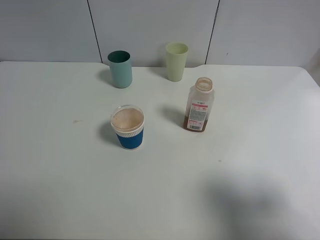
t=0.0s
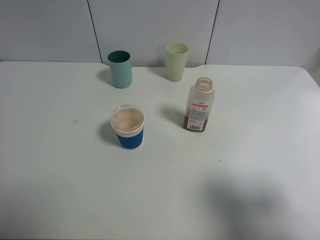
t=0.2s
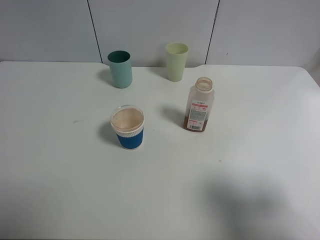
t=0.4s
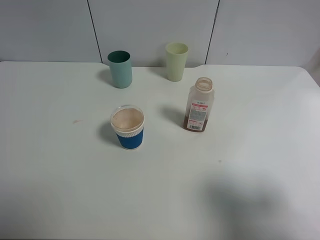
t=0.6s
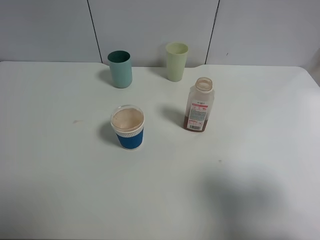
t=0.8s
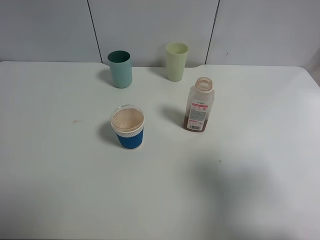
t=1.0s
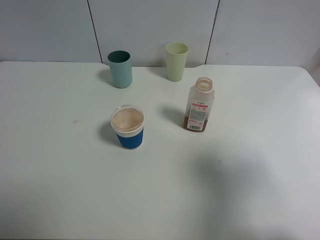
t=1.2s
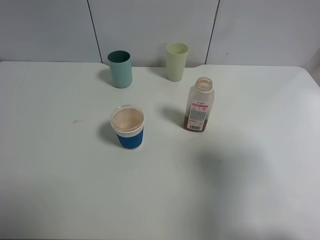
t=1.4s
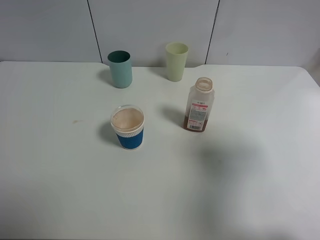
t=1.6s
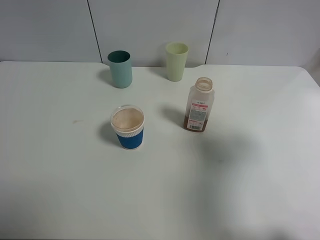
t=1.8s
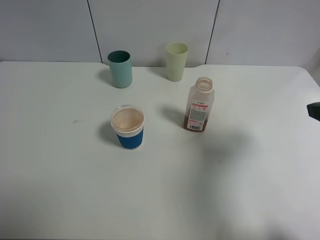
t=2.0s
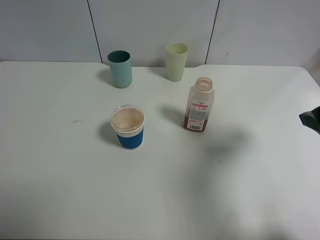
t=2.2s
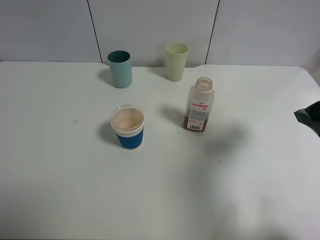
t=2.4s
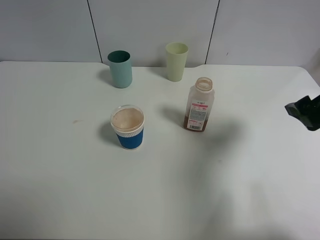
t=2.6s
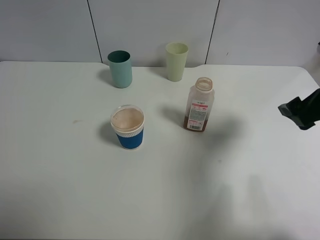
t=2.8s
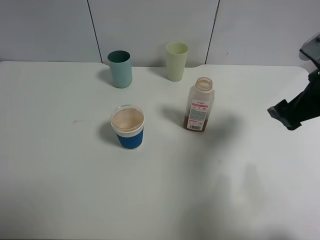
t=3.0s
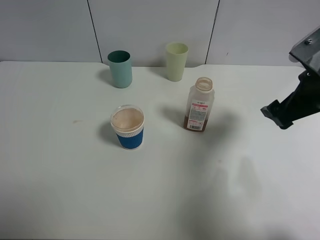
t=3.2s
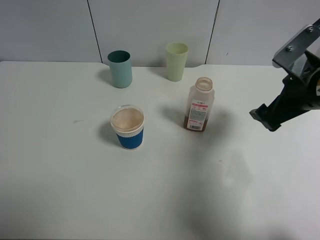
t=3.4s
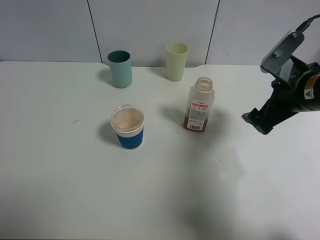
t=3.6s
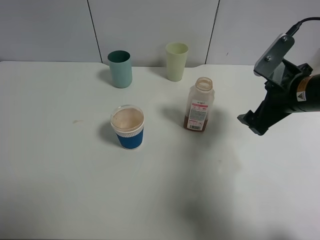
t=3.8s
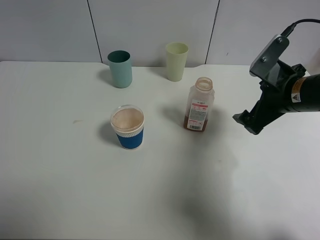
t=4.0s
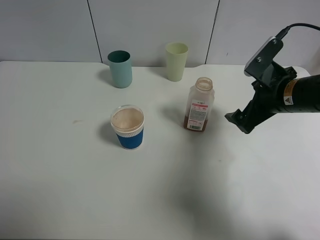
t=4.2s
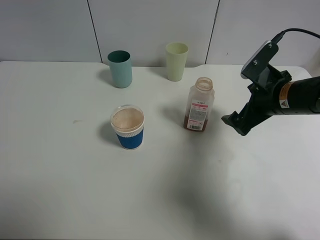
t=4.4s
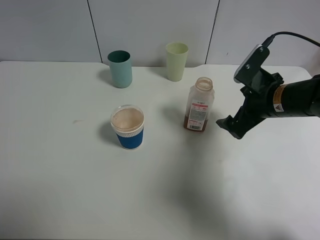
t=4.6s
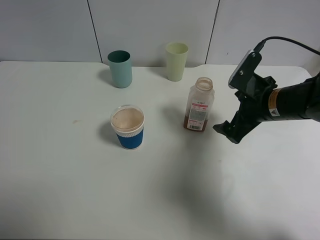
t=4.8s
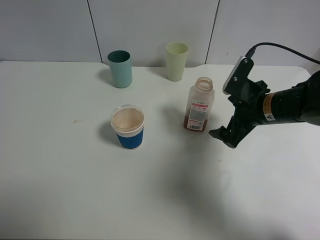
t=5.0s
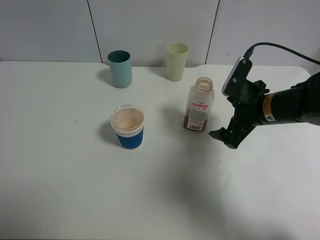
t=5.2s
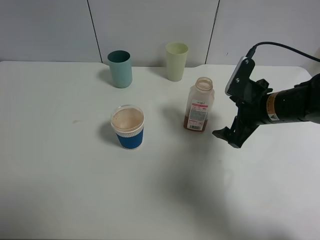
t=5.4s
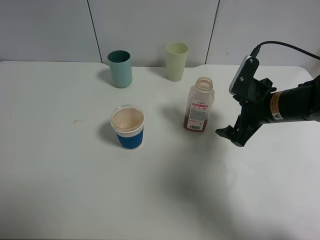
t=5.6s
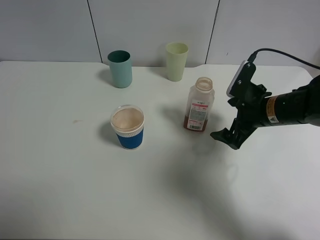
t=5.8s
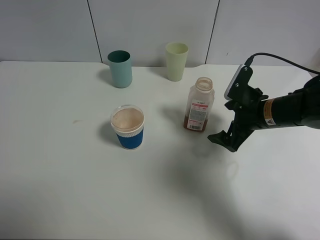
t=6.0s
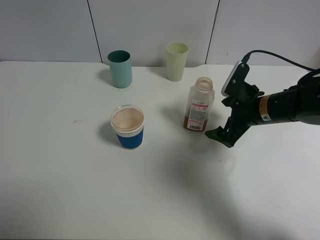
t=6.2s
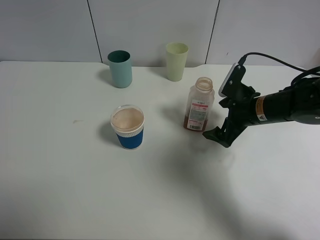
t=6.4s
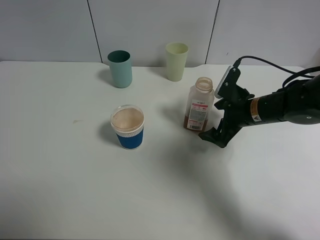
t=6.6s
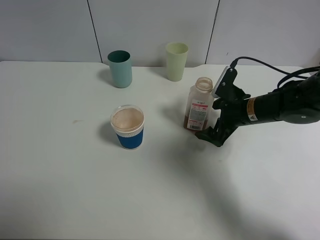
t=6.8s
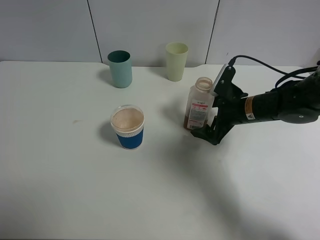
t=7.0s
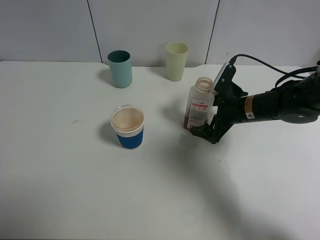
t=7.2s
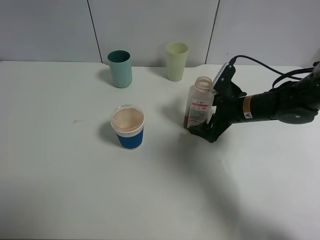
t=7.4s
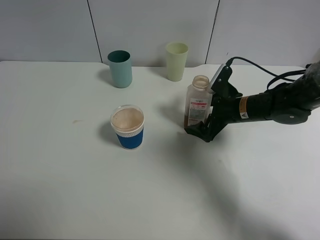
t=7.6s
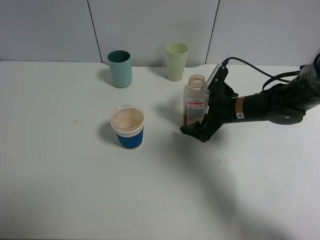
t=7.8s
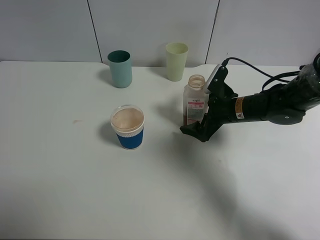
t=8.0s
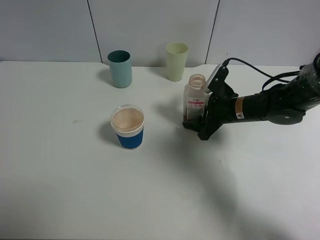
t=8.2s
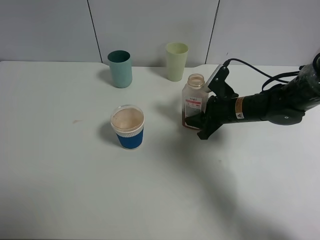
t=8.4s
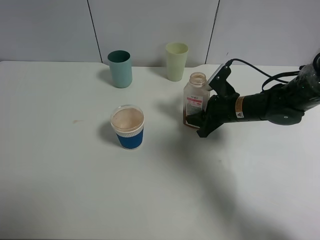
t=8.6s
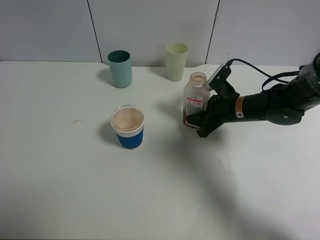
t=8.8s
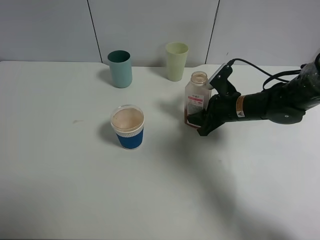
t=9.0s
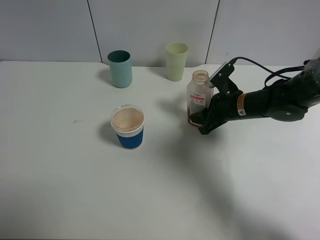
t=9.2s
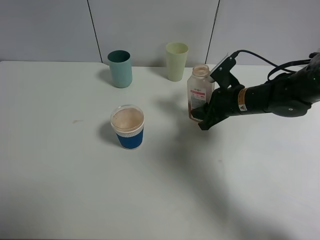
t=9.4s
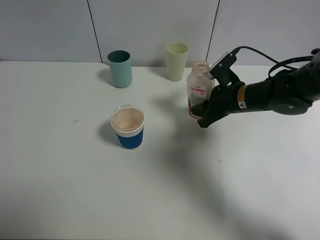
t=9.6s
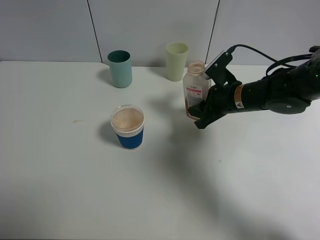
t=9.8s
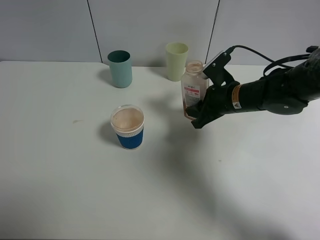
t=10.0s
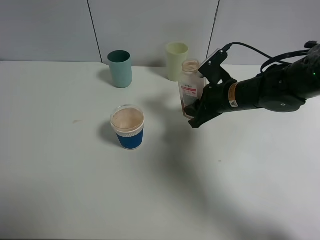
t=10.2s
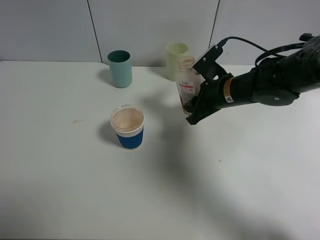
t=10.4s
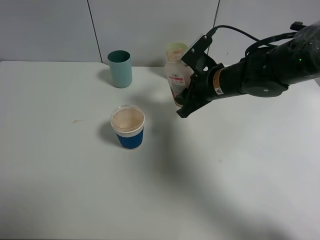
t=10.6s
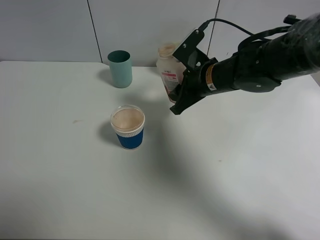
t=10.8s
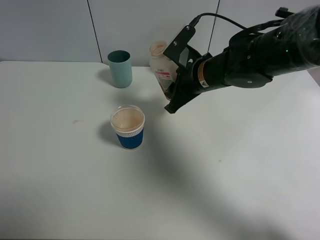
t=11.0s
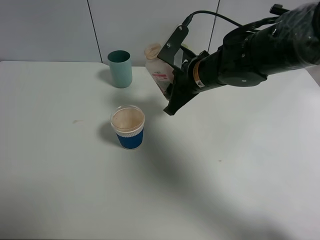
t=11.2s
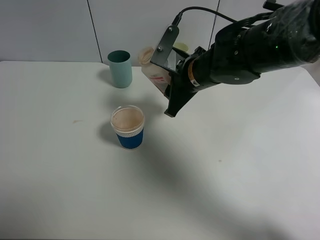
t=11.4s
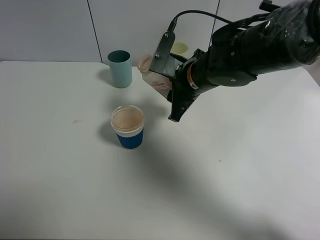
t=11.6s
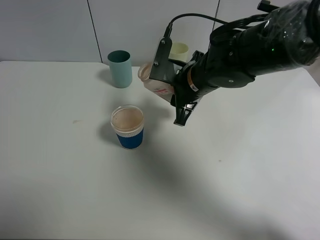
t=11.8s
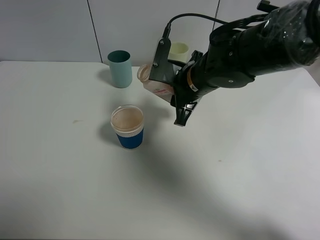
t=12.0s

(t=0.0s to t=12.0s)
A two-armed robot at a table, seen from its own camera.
Task of the whole recording: use a clamp to hold the bottle of the drink, pour the beverage into a random cup, then clamp the cup containing the drink and pour the drink into another random cup.
Step, t=0.0s - t=10.2s: Pick up the drink bottle with right gripper.
t=0.0s - t=1.6s: The right gripper heads forward, covering roughly 10 cm.
t=1.6s - t=3.0s: The right gripper moves forward and downward, approximately 15 cm.
t=3.0s - t=4.4s: The right gripper shifts approximately 5 cm downward.
t=4.4s - t=6.0s: The grippers stay close to where they were, moving slightly.
t=6.0s - t=7.6s: The right gripper moves approximately 5 cm.
t=7.6s - t=9.0s: The right gripper closes.
t=9.0s - t=10.4s: The right gripper moves roughly 5 cm.
t=10.4s - t=12.0s: The right gripper heads to the left, covering roughly 5 cm.

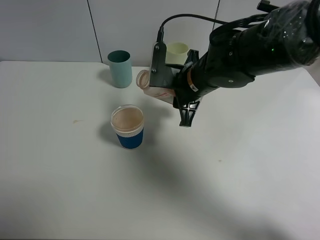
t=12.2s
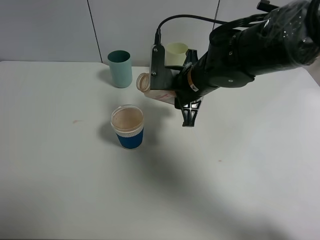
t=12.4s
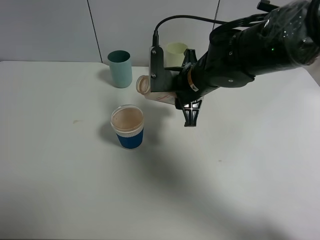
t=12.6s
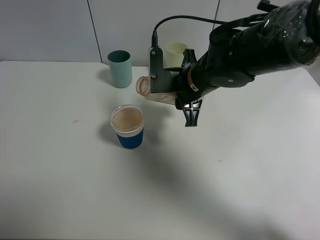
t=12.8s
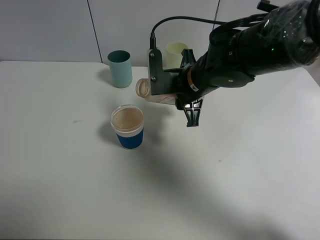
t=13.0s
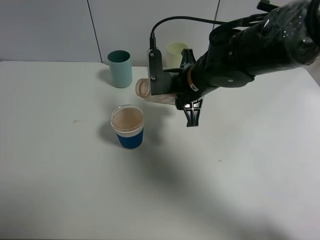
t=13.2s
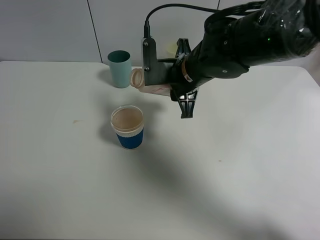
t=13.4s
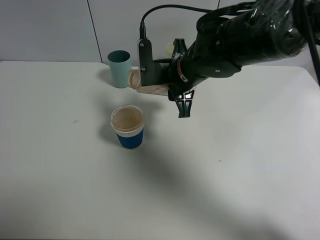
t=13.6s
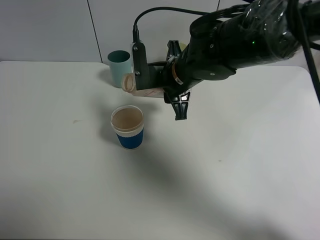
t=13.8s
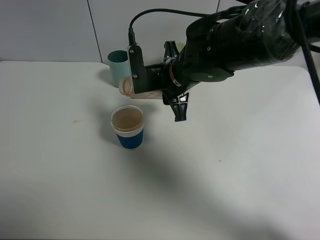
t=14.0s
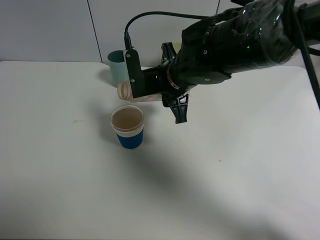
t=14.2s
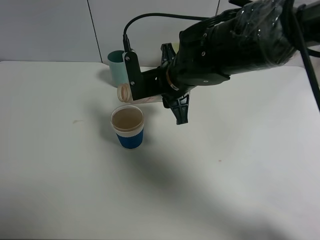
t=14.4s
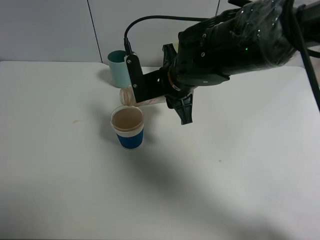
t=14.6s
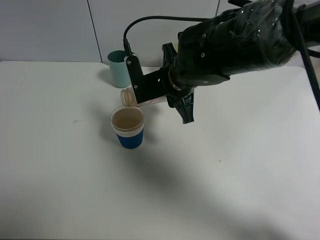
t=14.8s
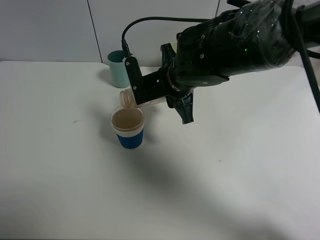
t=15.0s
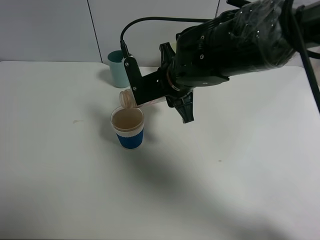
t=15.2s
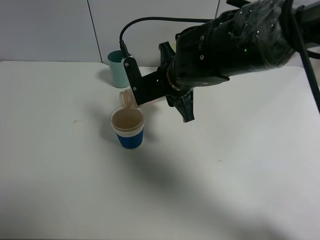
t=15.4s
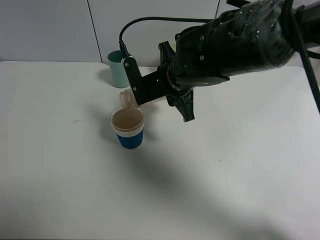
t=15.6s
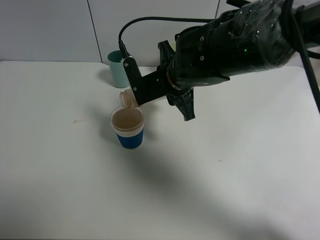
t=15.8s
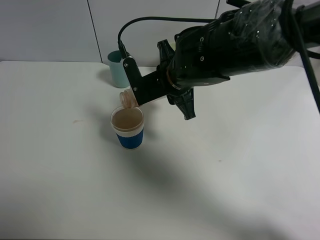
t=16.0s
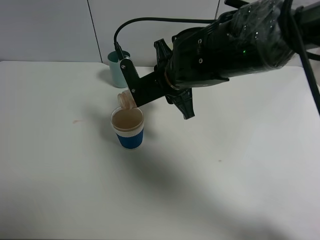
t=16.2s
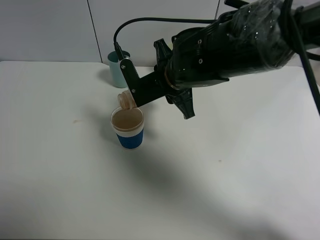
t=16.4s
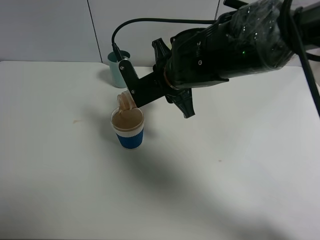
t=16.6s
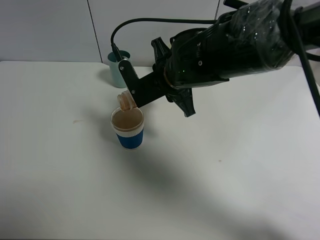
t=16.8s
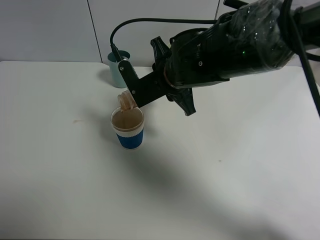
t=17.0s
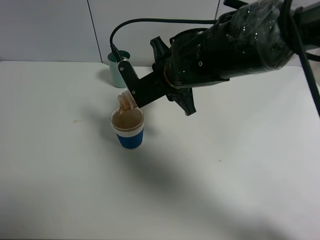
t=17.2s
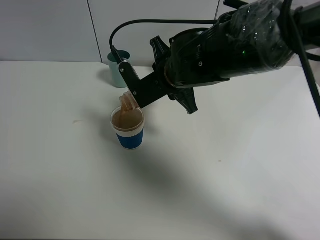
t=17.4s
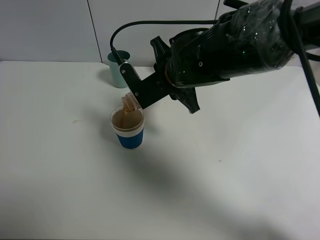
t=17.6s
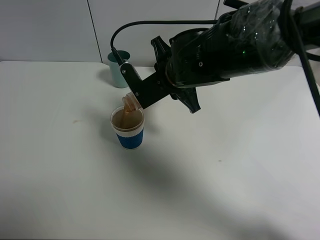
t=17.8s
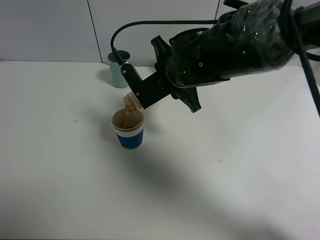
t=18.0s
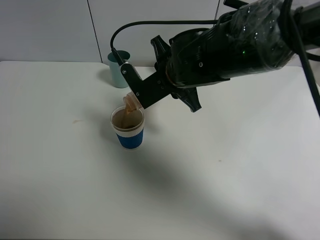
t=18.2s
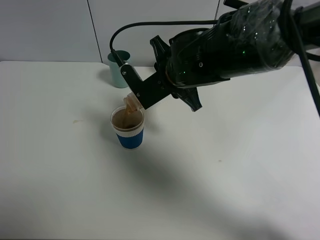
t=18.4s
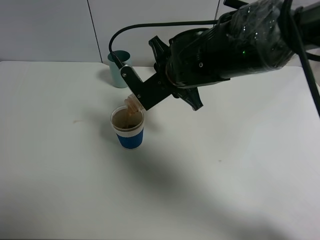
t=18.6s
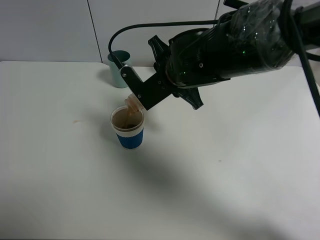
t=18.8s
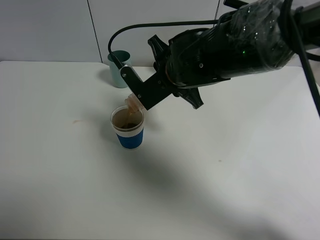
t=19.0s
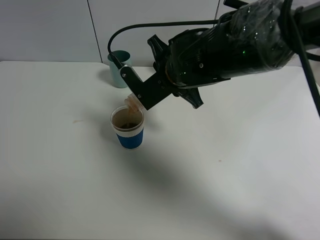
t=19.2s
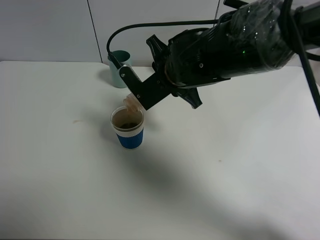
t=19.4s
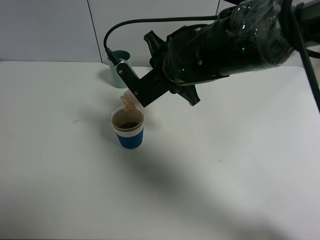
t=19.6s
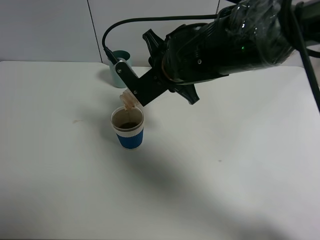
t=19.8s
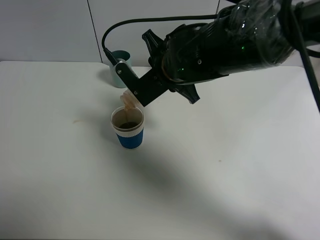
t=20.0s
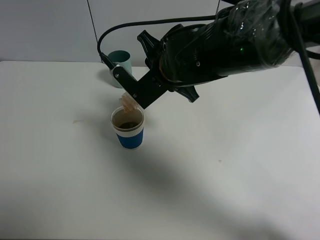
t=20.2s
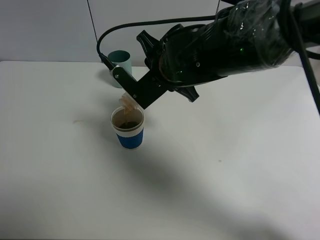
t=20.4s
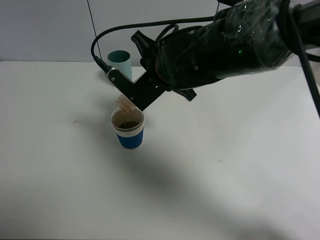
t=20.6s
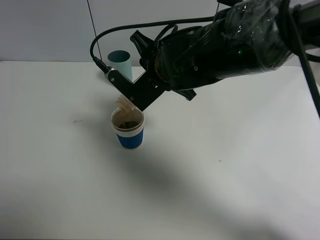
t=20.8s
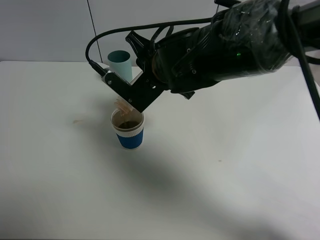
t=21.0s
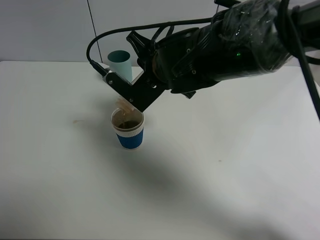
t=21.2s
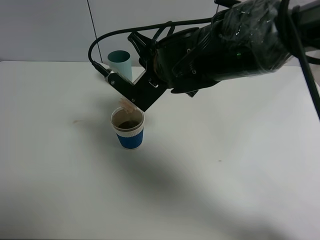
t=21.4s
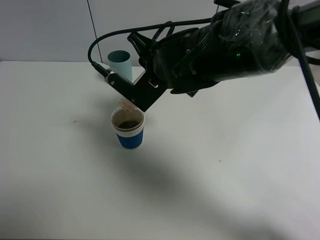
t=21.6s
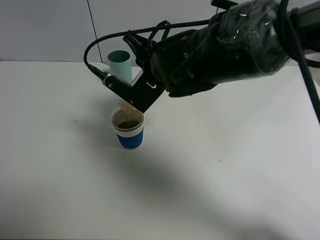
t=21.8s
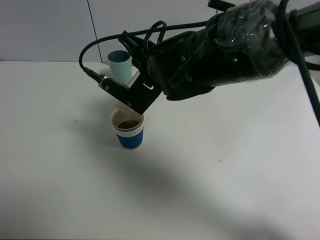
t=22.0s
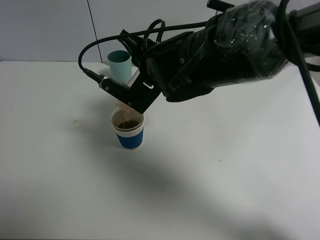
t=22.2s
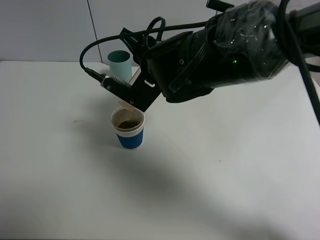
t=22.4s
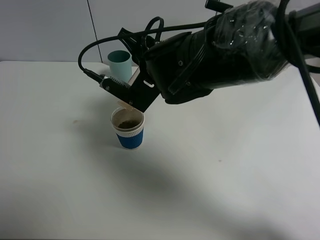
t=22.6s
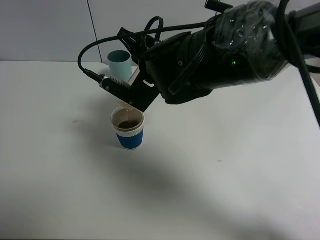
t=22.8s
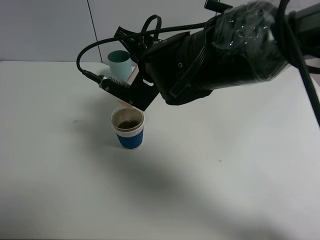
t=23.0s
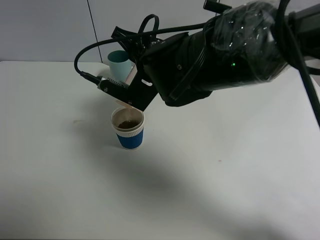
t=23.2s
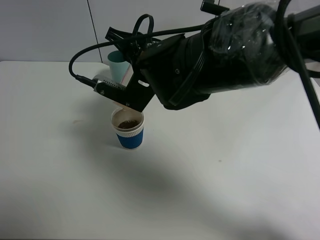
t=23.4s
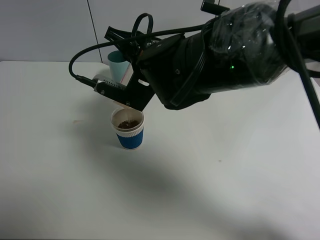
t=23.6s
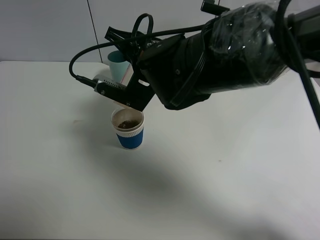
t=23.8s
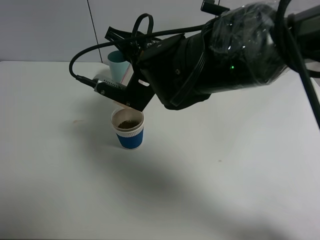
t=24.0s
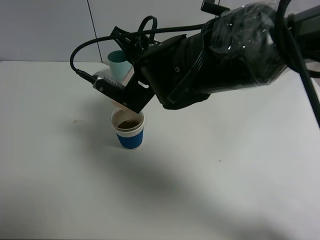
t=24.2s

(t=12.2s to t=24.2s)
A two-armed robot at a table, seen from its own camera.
Task of the whole recording: use a clamp to hold the bottle of the drink, pour the beverage into a random cup, then clamp the cup containing the drink and pour the drink into another random cup.
t=12.2s - t=13.8s: There are only small adjustments of the grippers.
t=13.8s - t=15.2s: The grippers move only a little.
t=15.2s - t=18.2s: The grippers move only a little.
t=18.2s - t=21.2s: The grippers make only small movements.
t=21.2s - t=24.2s: The grippers move only a little.
